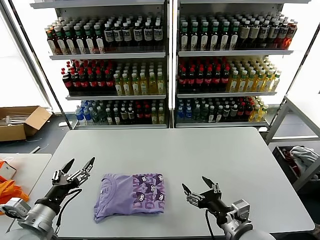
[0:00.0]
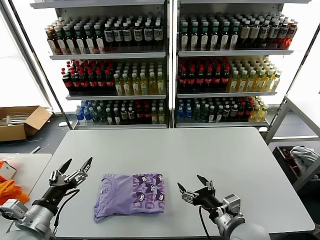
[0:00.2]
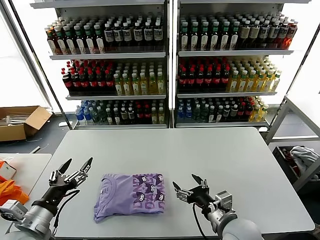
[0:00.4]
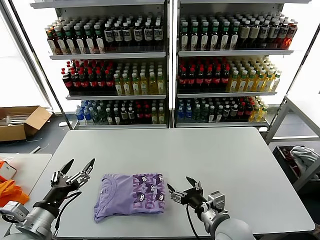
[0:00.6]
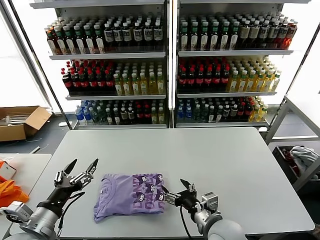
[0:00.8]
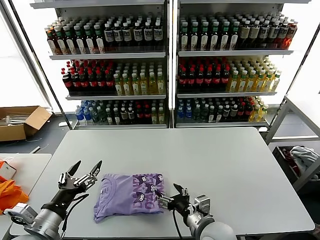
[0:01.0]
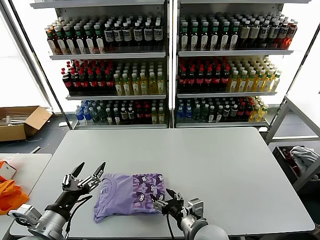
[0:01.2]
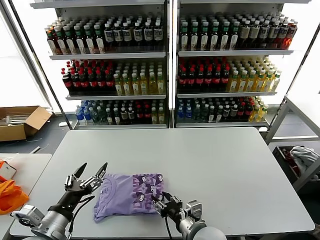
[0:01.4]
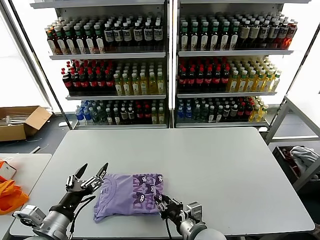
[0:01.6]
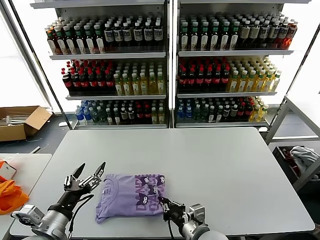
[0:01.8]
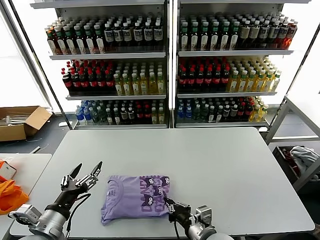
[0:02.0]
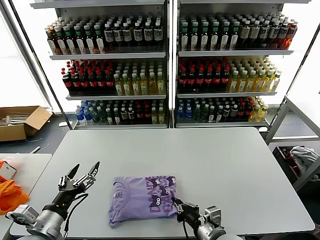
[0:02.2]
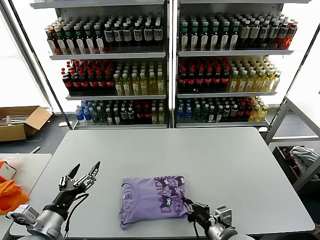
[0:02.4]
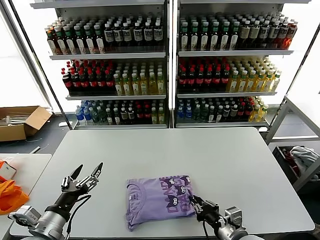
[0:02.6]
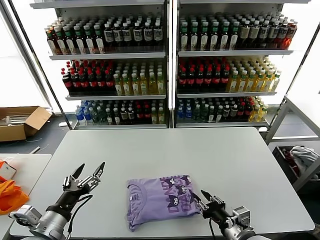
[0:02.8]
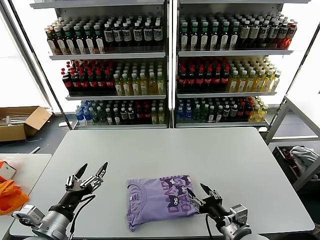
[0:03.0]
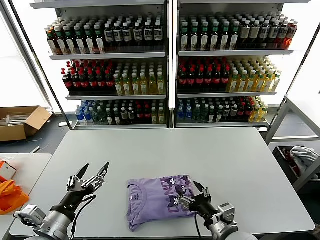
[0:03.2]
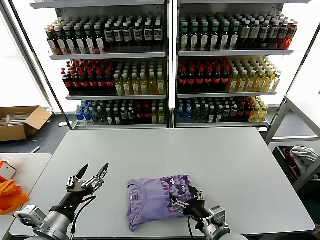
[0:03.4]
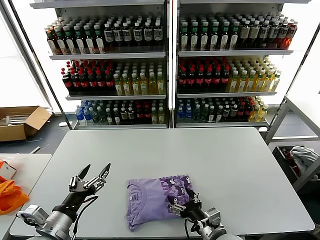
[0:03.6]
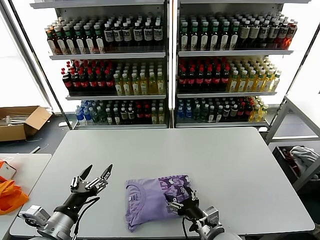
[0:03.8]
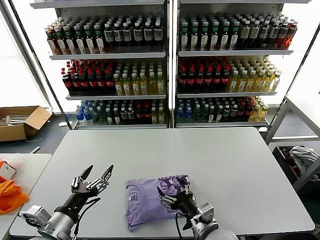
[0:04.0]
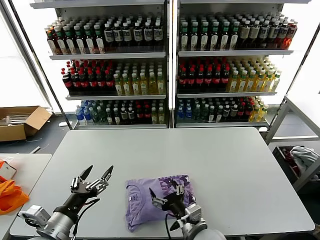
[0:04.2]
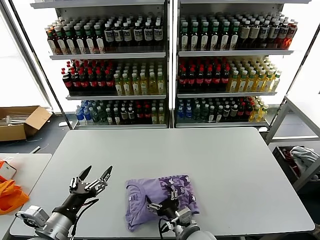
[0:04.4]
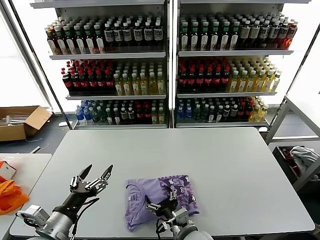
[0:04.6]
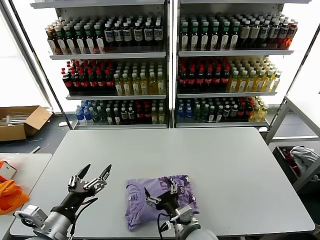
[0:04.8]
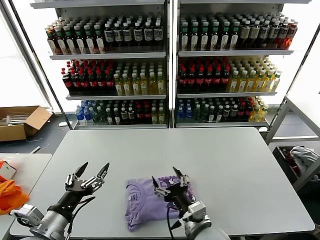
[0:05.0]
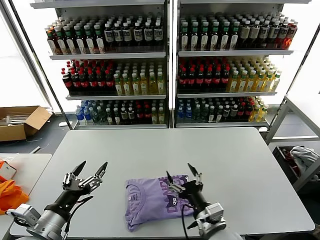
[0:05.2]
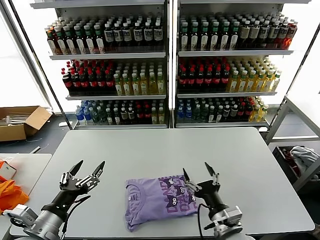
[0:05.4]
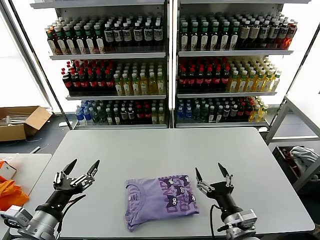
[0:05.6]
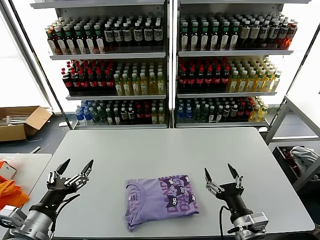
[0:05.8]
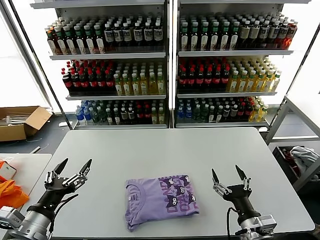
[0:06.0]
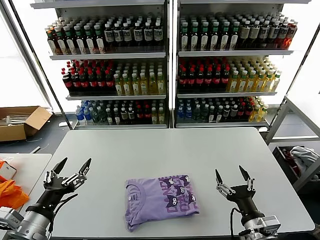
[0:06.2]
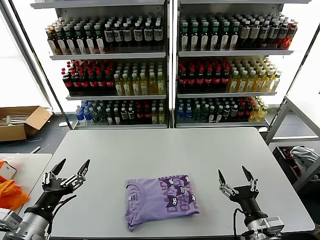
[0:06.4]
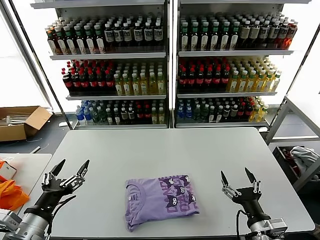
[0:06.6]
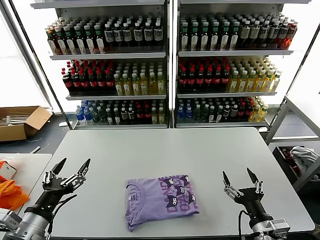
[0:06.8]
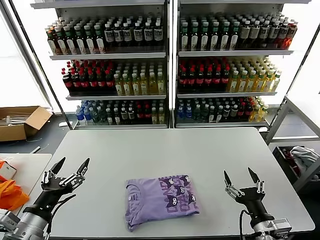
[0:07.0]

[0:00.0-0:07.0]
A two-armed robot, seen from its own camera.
Task of the whole recording: fold and organize the clothes.
Step, 0:00.0 to 0:04.8: Drag the clothes to the center of the table.
0:00.0 to 0:01.4: The right gripper travels to the left by some 10 cm.
0:01.4 to 0:02.8: The right gripper moves to the right, approximately 10 cm, and closes, then reopens.
0:02.8 to 0:04.2: The right gripper goes some 10 cm to the left, and opens.
0:04.2 to 0:05.6: The right gripper shifts about 10 cm to the right.
0:05.6 to 0:07.0: The right gripper is displaced to the right by about 10 cm.
